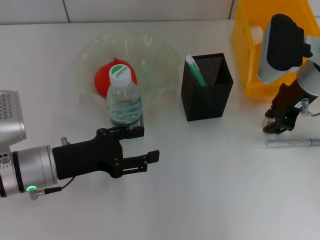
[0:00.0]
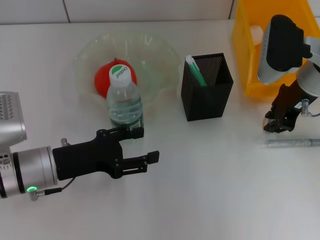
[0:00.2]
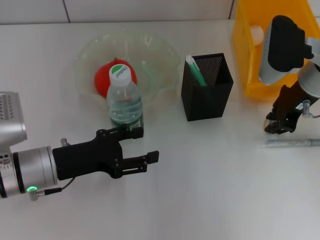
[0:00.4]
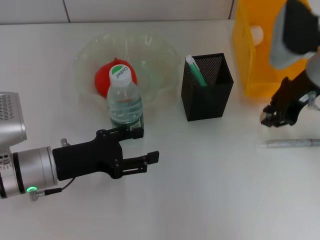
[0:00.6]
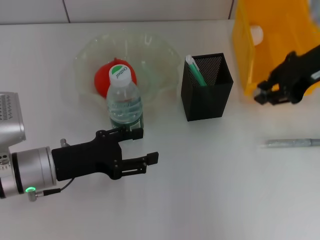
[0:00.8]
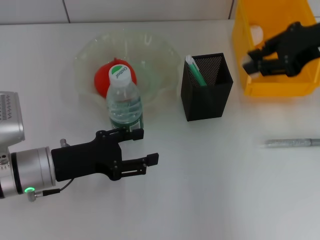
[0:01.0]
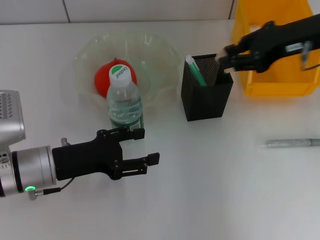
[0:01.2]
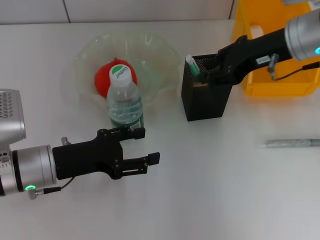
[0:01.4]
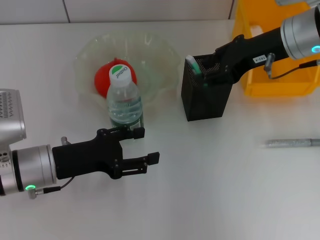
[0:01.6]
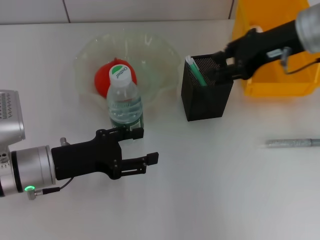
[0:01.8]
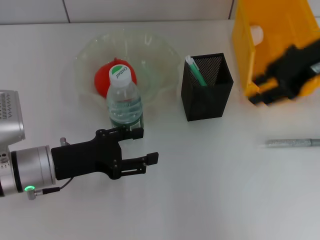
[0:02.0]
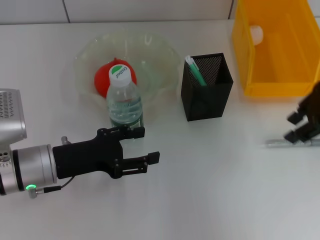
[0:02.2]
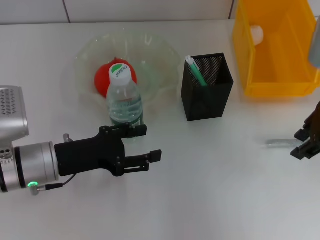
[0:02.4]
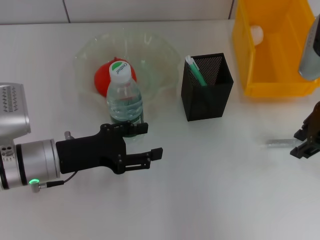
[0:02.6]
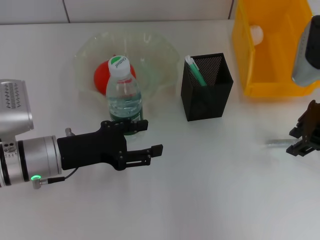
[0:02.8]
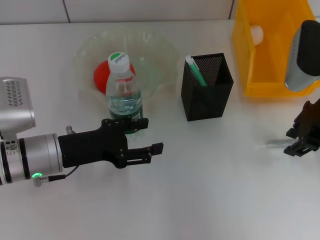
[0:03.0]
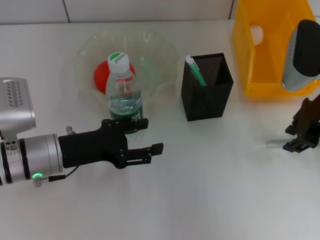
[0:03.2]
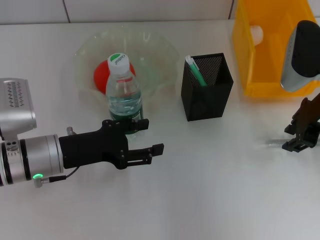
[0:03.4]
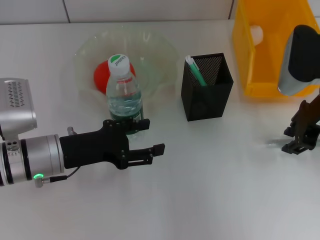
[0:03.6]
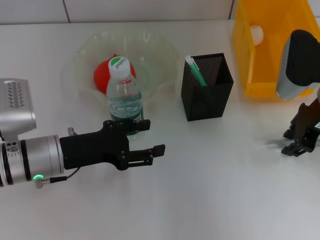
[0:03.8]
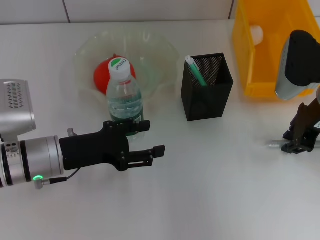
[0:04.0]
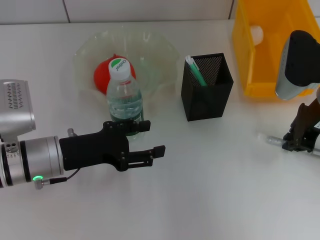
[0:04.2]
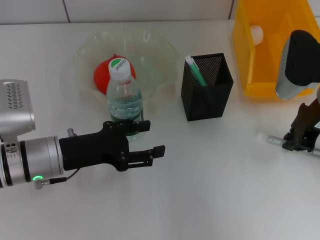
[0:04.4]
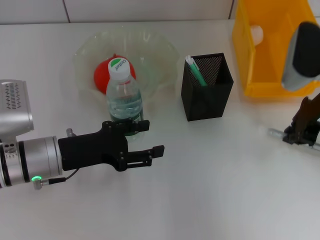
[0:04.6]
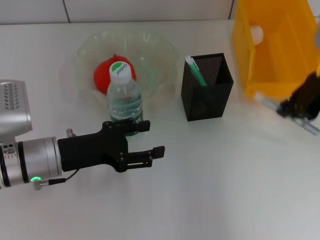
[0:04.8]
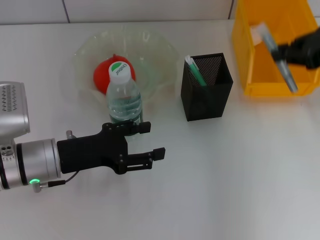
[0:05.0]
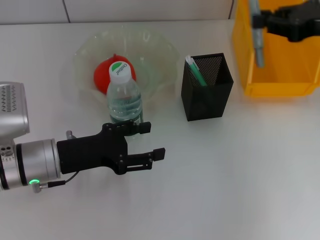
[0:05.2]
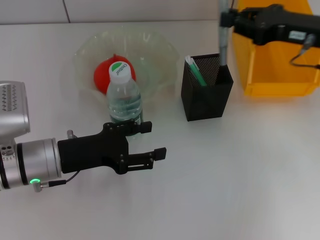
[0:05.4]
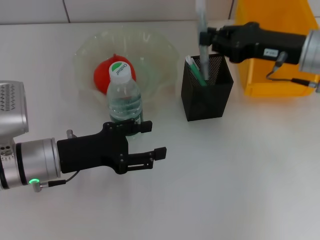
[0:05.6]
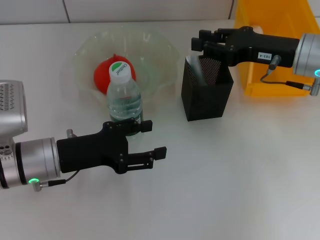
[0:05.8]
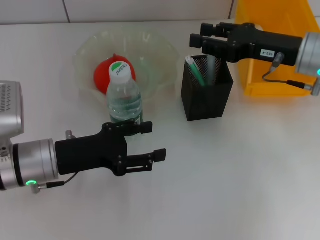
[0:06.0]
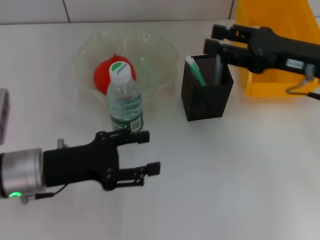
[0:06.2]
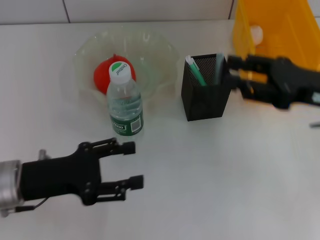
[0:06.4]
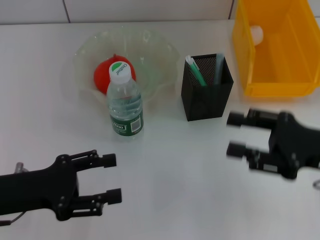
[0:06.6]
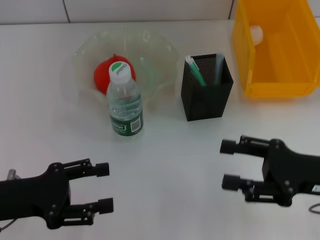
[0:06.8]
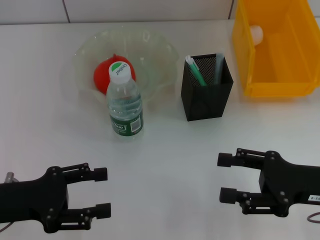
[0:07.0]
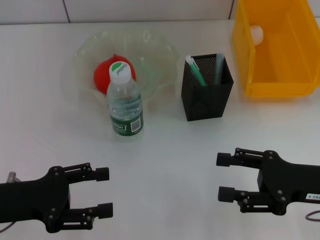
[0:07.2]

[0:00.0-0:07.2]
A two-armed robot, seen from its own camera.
Step, 0:00.4 to 0:01.4: Put the eraser into the pen holder with the right hand.
Step, 0:01.6 to 0:04.2: Grab the gray glue with the right hand.
Step, 0:04.6 to 0:06.0: Place the gray glue into the pen holder with the right hand.
0:01.4 to 0:02.8: The right gripper changes place by some 5 cm.
0:02.8 to 0:04.4: The right gripper closes its fingers.
0:04.4 to 0:05.8: The right gripper travels upward and back again, about 10 cm each way.
0:05.8 to 0:07.2: The right gripper goes about 15 cm backward and downward, and opens up; the left gripper moves to the left and backward, about 10 cm.
